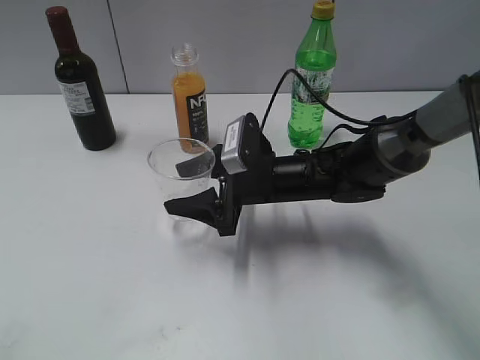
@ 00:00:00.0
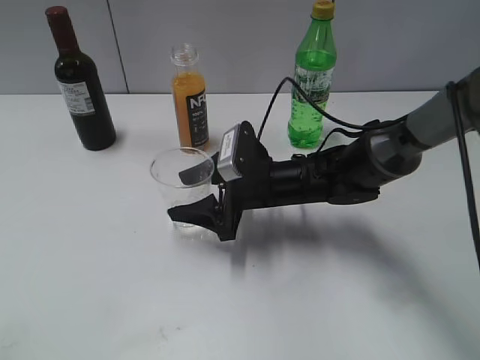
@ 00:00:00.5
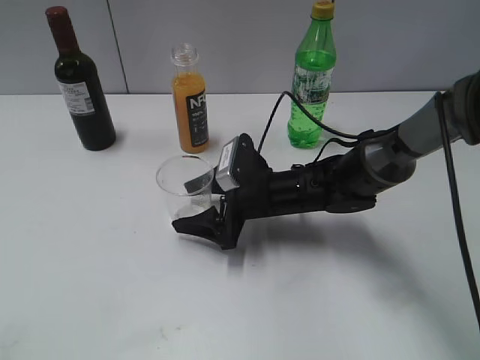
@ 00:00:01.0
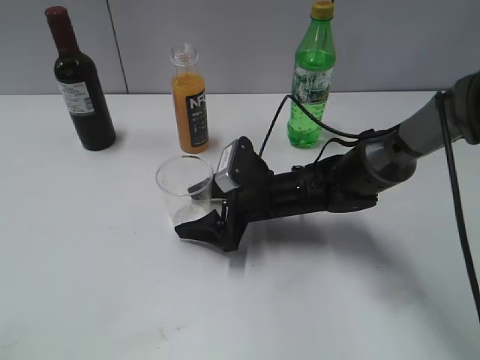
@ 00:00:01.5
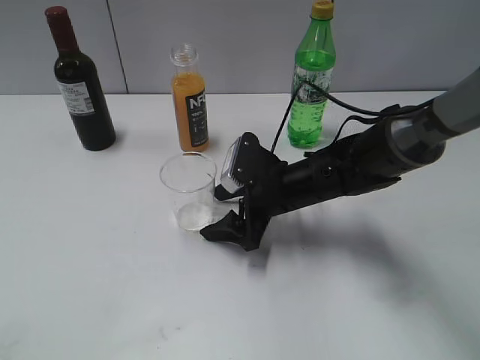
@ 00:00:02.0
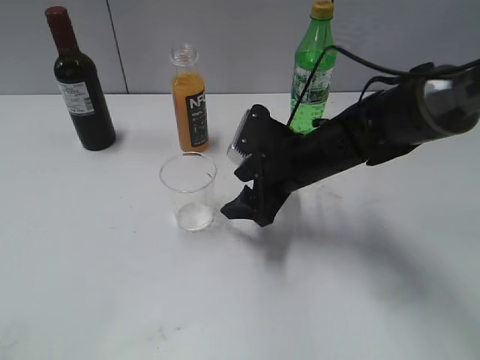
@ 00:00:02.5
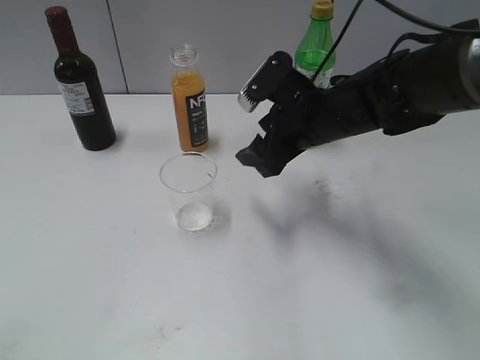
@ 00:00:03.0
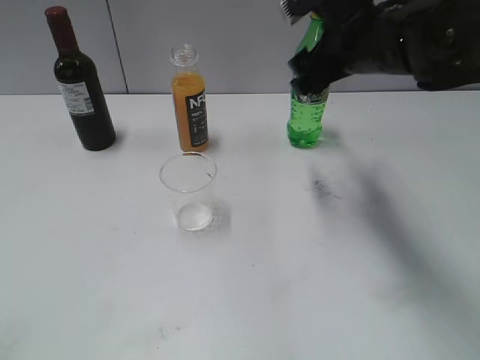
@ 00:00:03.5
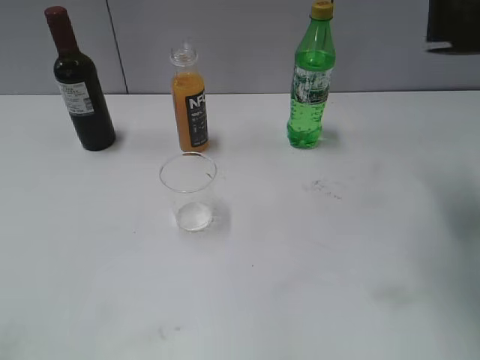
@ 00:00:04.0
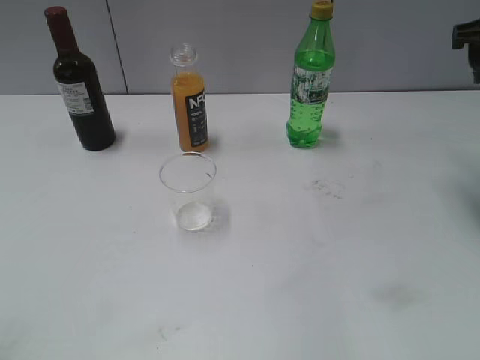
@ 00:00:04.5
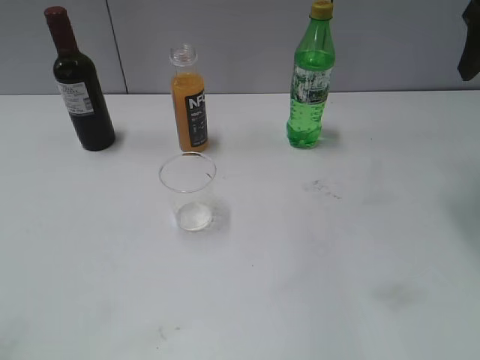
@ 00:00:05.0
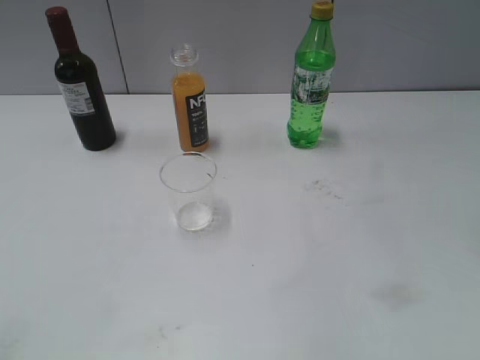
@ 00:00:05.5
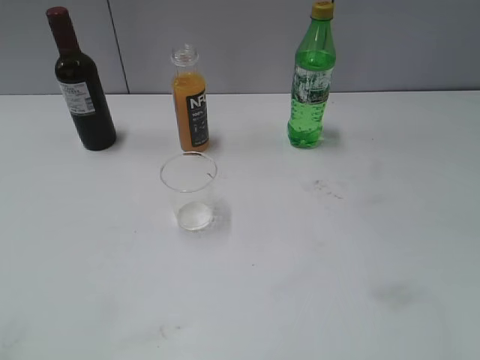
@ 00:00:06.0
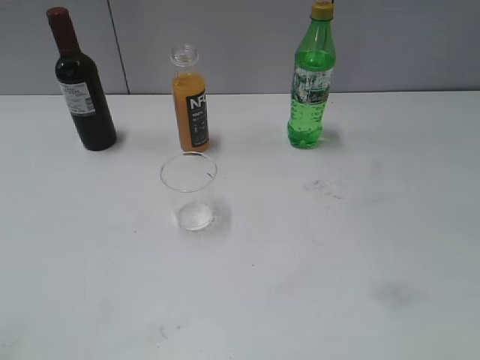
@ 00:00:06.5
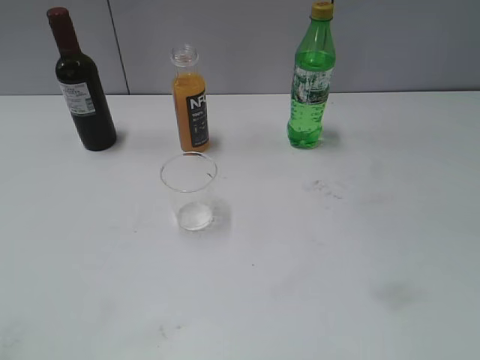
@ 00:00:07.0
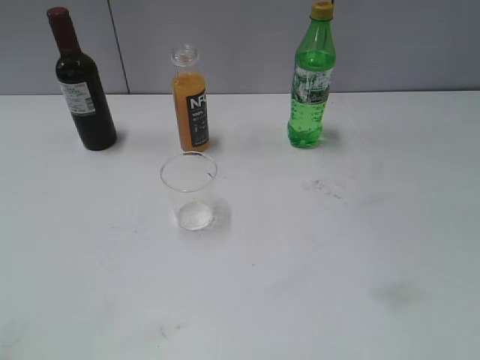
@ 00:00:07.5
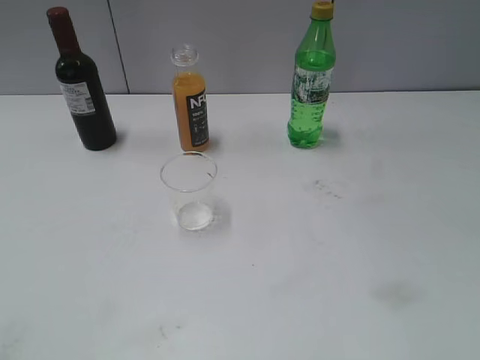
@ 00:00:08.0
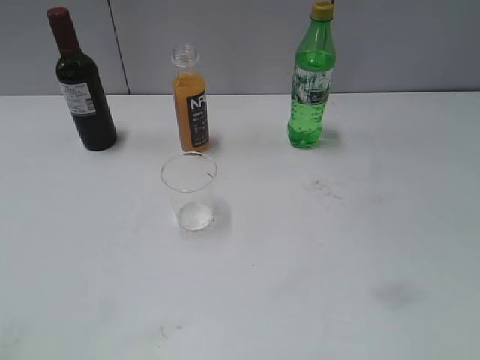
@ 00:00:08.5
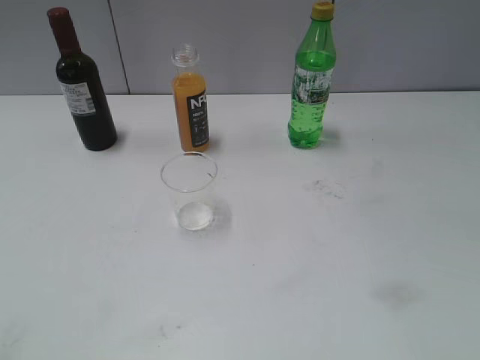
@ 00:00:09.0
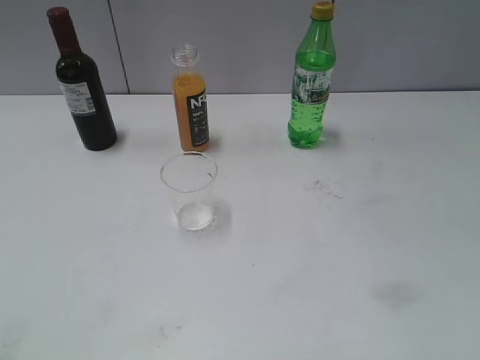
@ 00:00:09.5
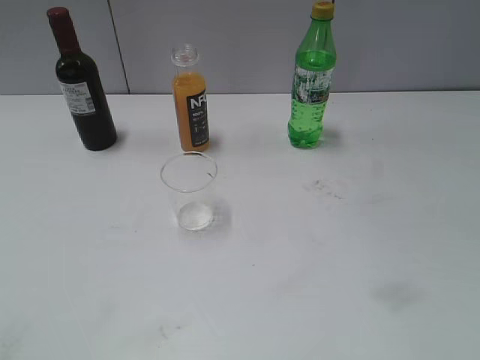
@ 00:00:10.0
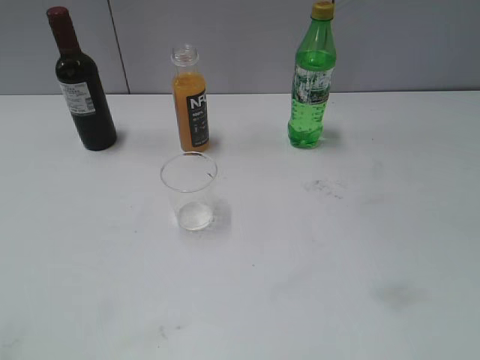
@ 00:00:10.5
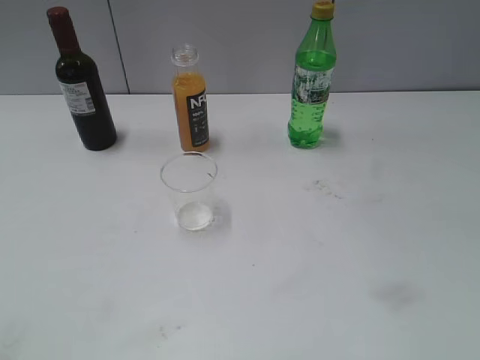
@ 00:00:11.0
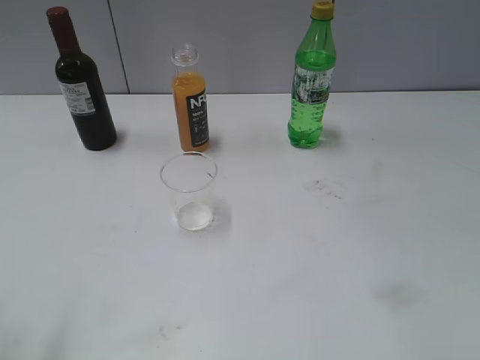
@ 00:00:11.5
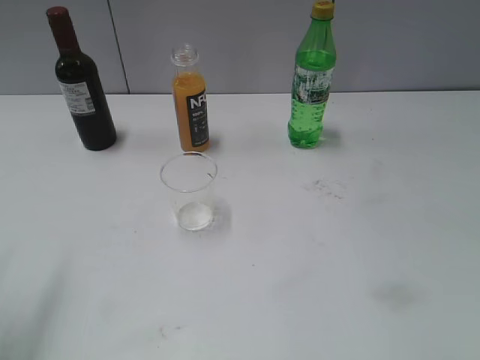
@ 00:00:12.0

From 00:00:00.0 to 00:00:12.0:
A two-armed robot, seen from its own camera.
Step, from 00:00:00.0 to 00:00:02.0: Place the transparent cup on the table with right gripper.
From 00:00:00.0 to 00:00:02.0: The right gripper opens its fingers.
From 00:00:02.0 to 00:00:04.0: The right gripper travels upward and to the right by about 25 cm.
From 00:00:04.0 to 00:00:06.0: The right gripper is displaced backward and to the right by about 20 cm.
From 00:00:08.0 to 00:00:10.0: The two grippers keep their place.
From 00:00:10.0 to 00:00:12.0: The left gripper is displaced forward by some 15 cm.

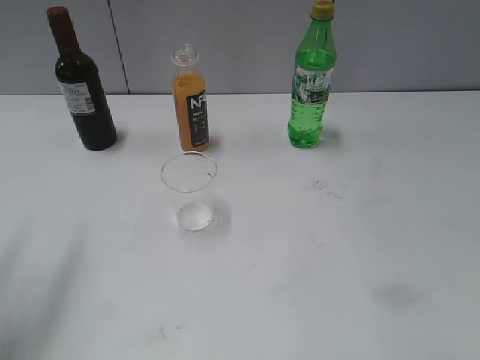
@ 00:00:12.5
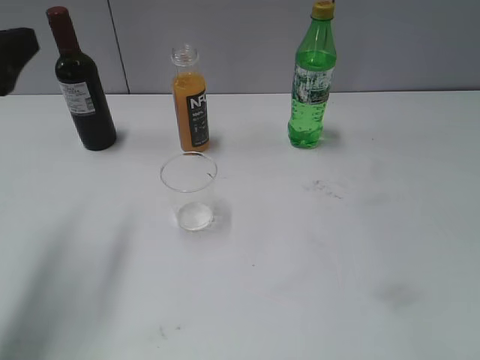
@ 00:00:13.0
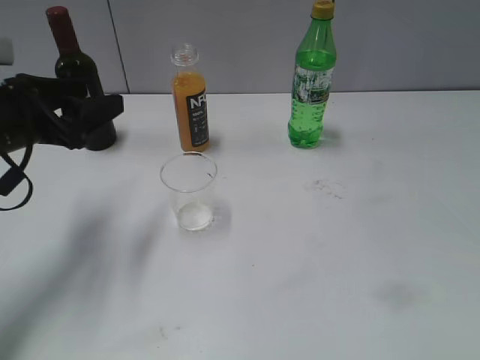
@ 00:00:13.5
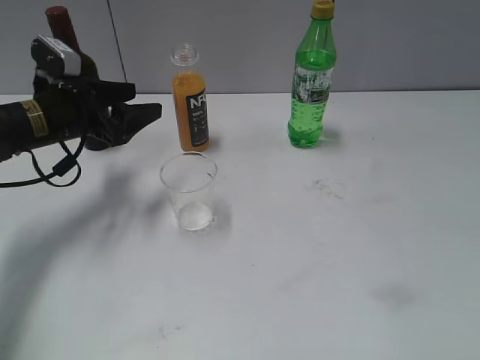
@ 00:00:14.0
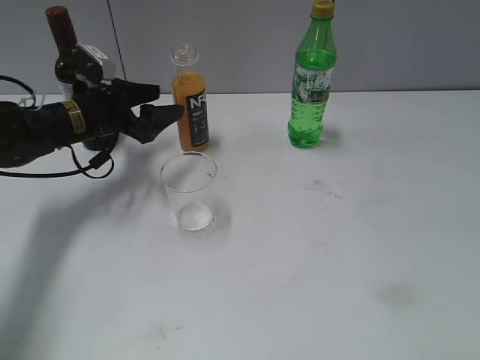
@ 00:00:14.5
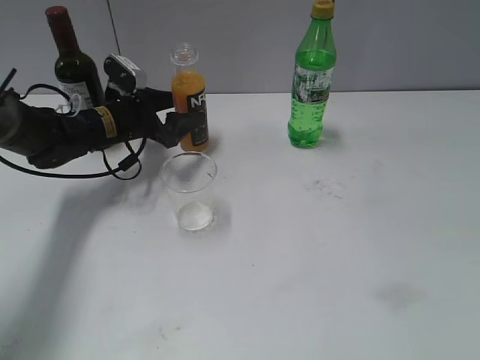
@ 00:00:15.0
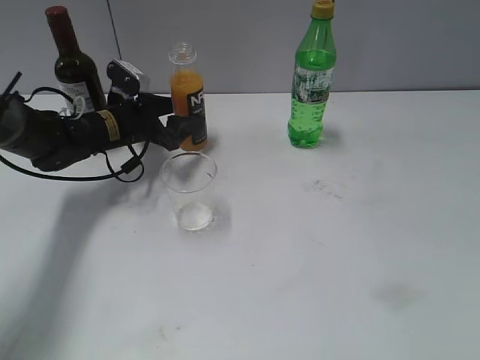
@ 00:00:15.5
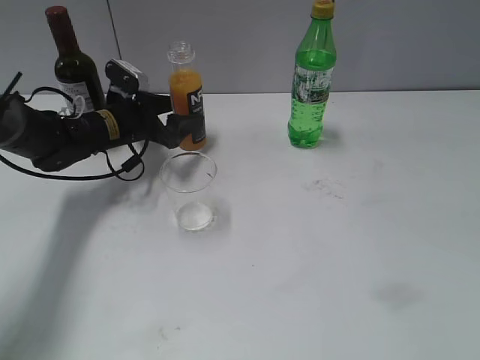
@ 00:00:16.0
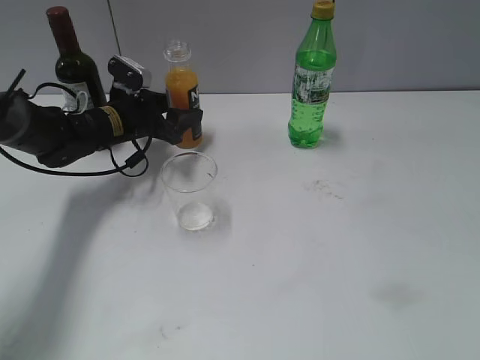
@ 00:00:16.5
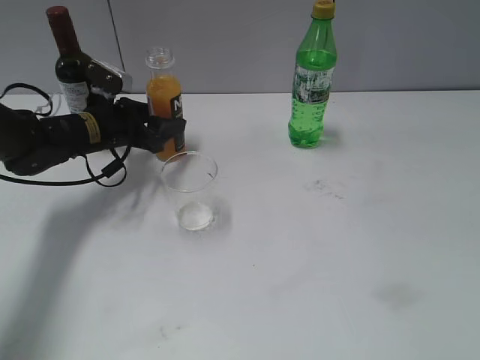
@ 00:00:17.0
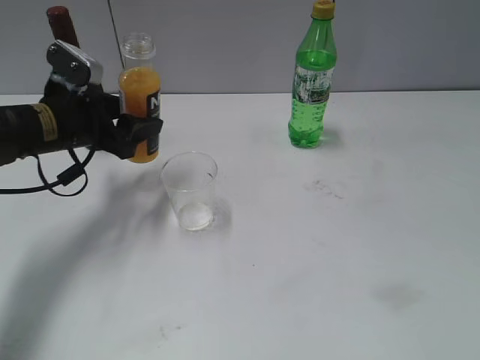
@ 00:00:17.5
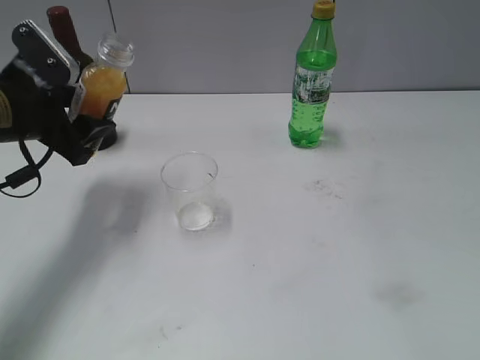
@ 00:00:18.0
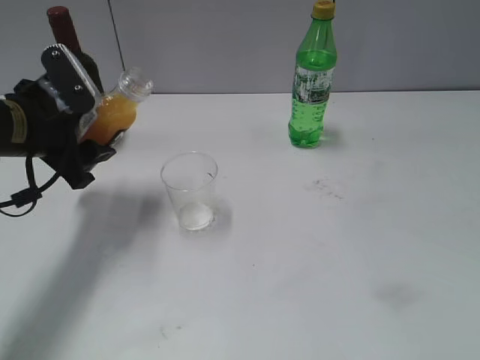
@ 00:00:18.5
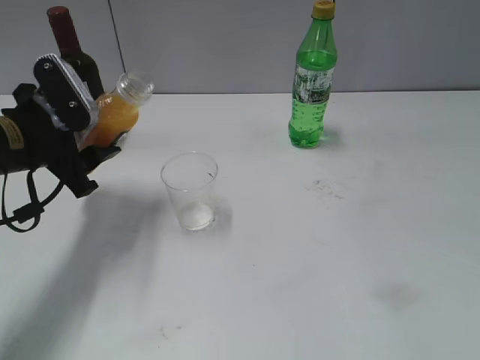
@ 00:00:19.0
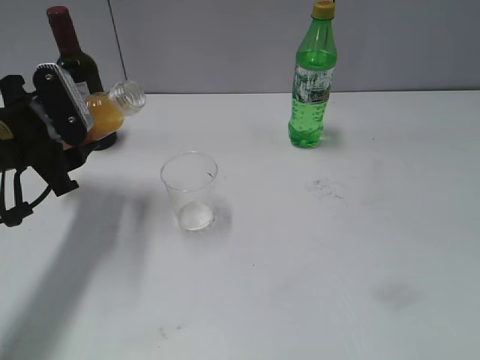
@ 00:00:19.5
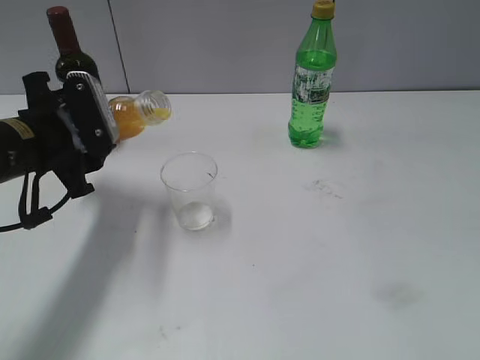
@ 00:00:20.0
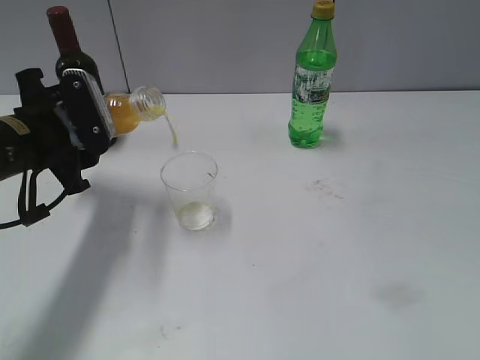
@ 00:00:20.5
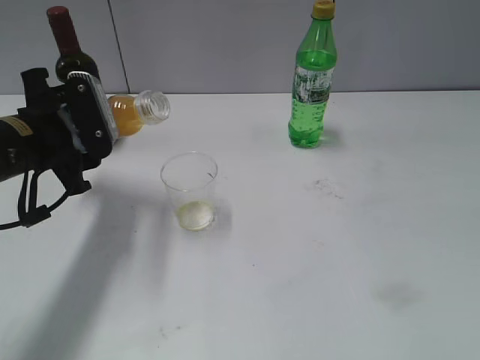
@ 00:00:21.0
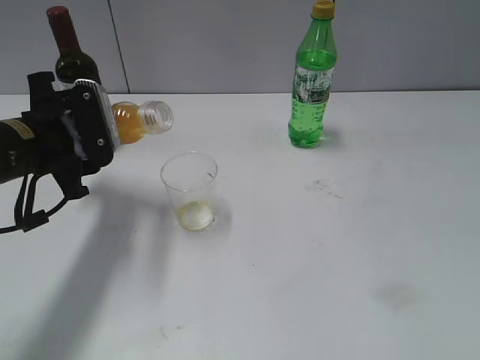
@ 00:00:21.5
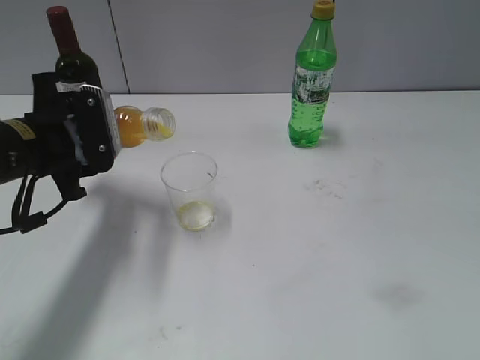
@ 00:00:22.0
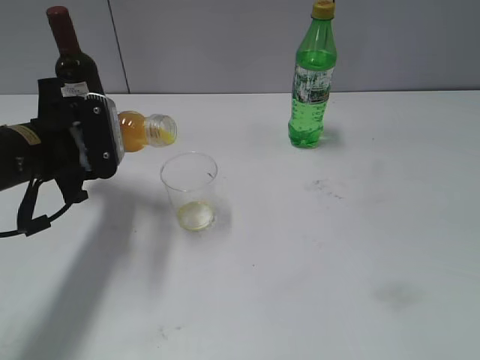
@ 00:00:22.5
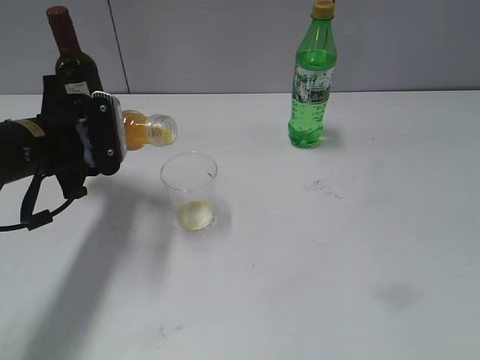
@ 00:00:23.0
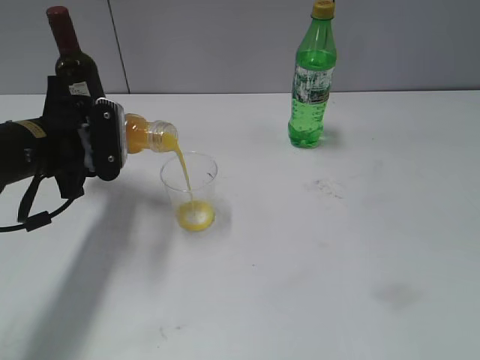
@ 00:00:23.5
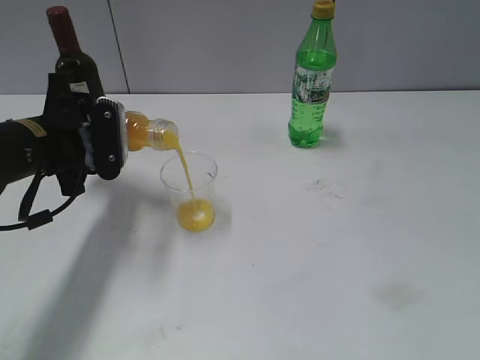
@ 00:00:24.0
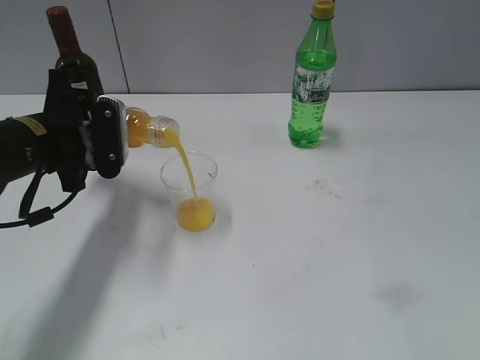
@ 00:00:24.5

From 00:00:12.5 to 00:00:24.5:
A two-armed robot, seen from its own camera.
Step, from 00:00:12.5 to 00:00:16.5: Grasp the bottle with orange juice with left gripper.
From 00:00:12.5 to 00:00:14.5: The left gripper shifts some 30 cm forward, downward and to the right.
From 00:00:14.5 to 00:00:16.5: The left gripper shifts by about 5 cm, and closes up.
From 00:00:16.5 to 00:00:18.5: The left gripper is displaced backward and upward by about 15 cm.
From 00:00:20.5 to 00:00:22.5: The grippers move only a little.
From 00:00:22.5 to 00:00:24.5: The grippers make only small movements.

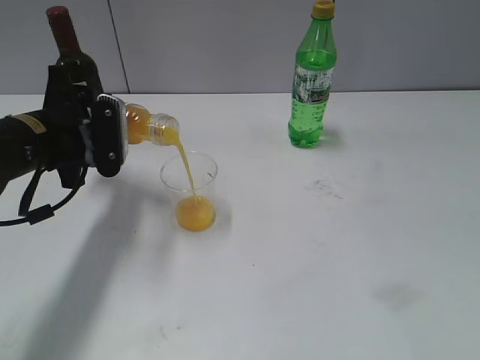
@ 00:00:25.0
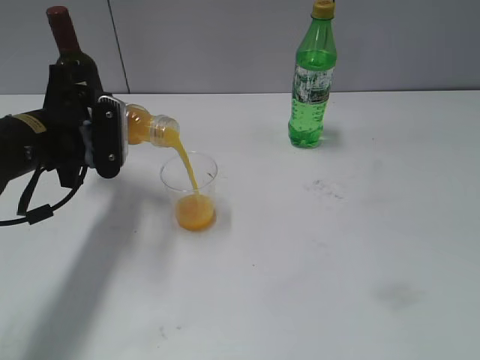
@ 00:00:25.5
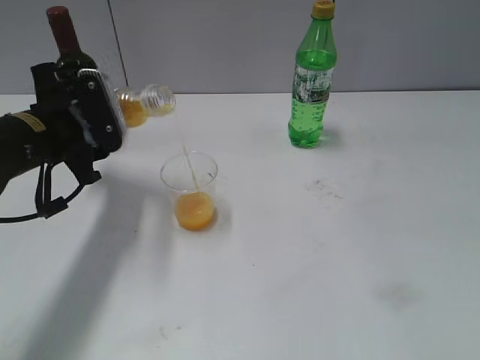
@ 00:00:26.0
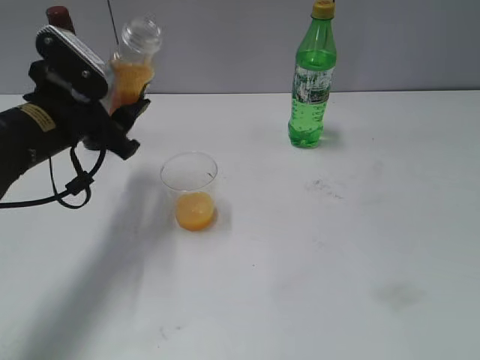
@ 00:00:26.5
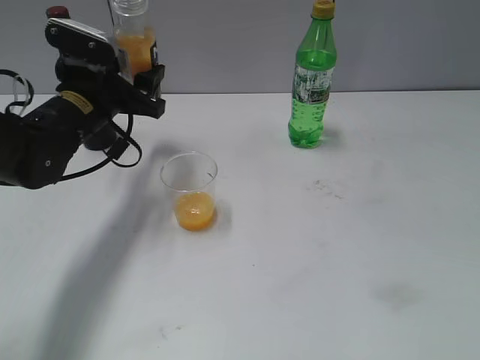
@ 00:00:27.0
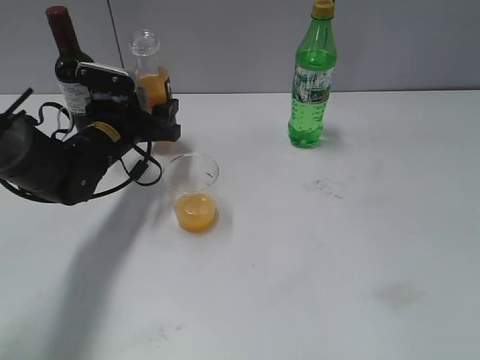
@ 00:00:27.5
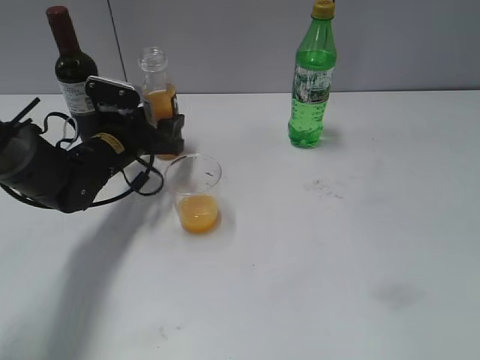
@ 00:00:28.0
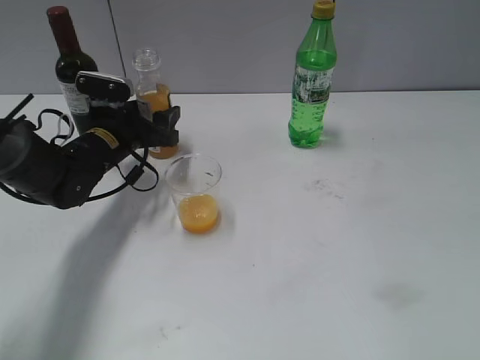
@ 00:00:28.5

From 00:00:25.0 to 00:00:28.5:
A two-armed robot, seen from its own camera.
From 00:00:25.0 to 00:00:27.0: The left gripper is displaced forward by roughly 5 cm.
From 00:00:27.0 to 00:00:28.5: The left gripper travels downward by about 10 cm, and opens up.
